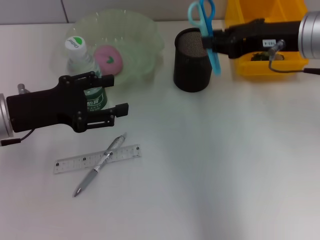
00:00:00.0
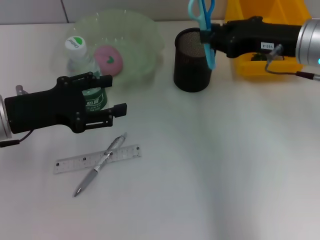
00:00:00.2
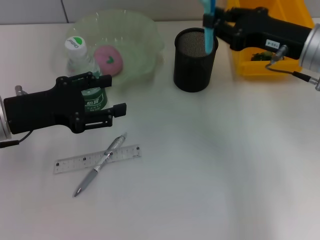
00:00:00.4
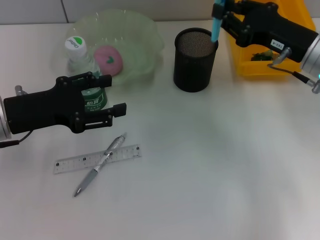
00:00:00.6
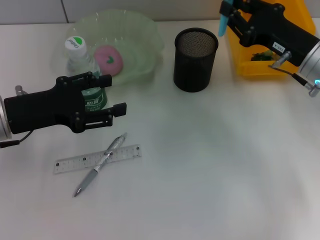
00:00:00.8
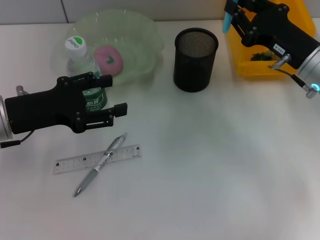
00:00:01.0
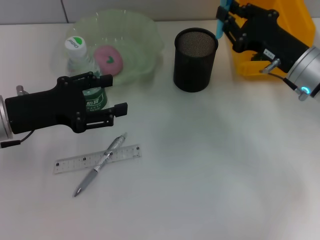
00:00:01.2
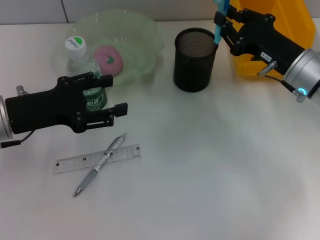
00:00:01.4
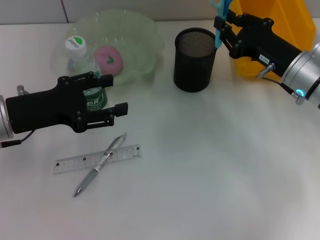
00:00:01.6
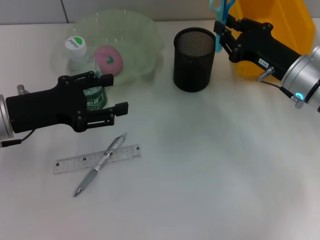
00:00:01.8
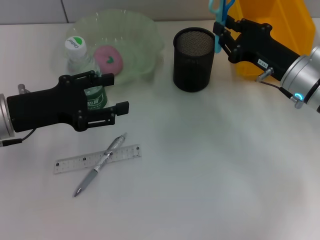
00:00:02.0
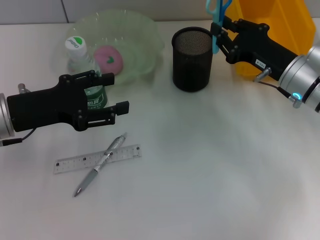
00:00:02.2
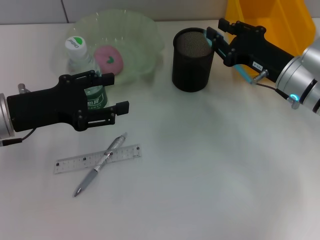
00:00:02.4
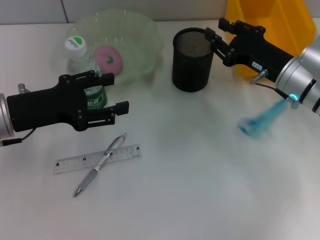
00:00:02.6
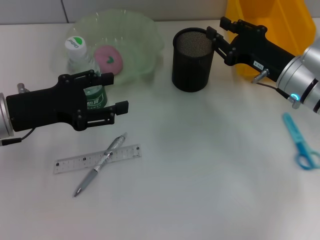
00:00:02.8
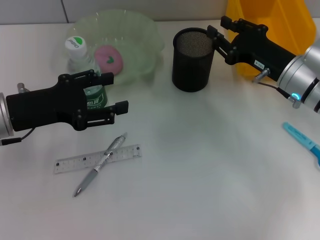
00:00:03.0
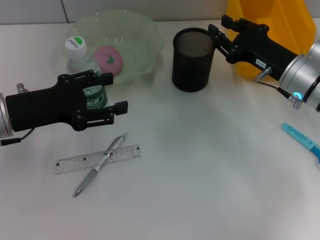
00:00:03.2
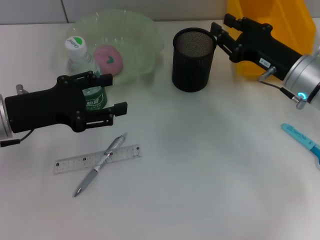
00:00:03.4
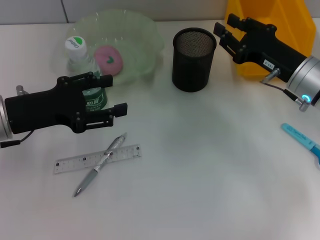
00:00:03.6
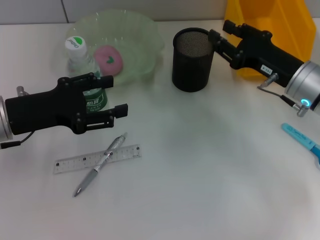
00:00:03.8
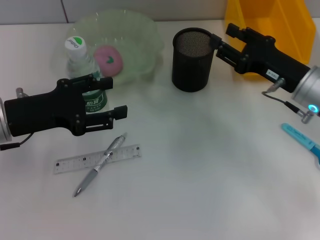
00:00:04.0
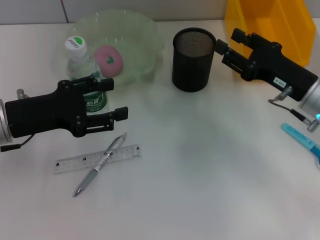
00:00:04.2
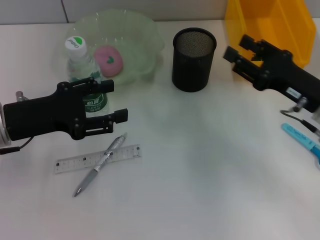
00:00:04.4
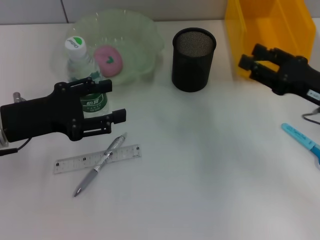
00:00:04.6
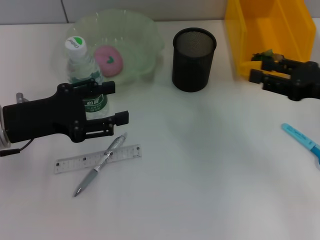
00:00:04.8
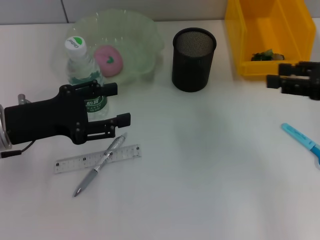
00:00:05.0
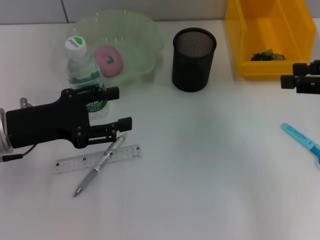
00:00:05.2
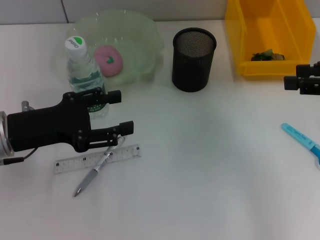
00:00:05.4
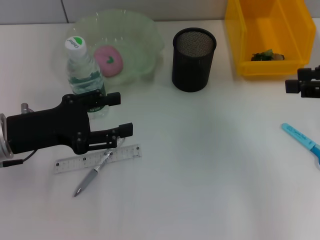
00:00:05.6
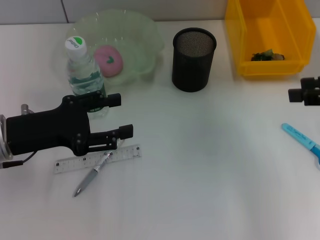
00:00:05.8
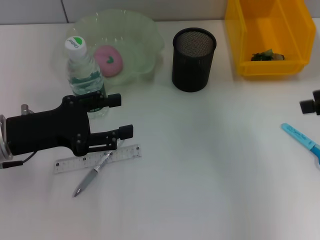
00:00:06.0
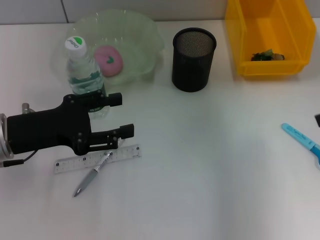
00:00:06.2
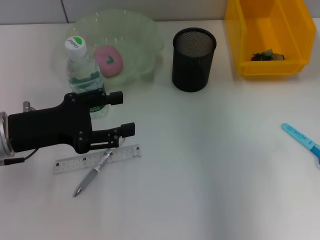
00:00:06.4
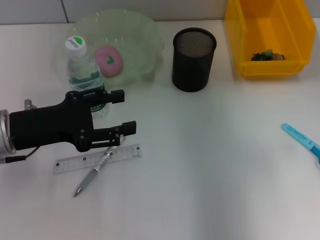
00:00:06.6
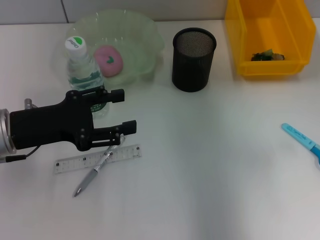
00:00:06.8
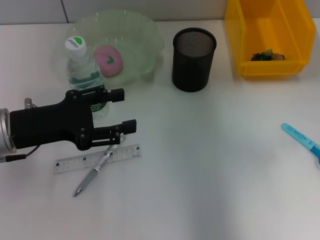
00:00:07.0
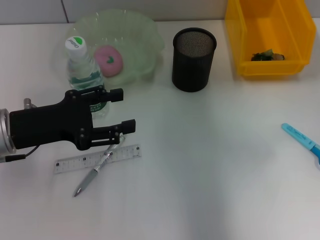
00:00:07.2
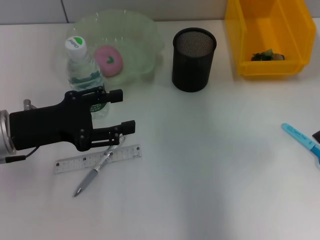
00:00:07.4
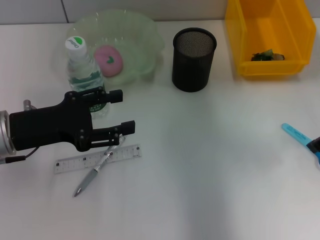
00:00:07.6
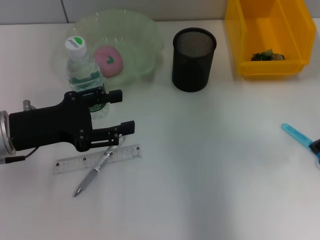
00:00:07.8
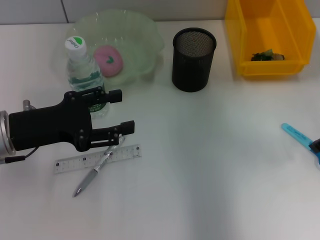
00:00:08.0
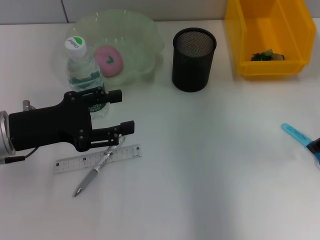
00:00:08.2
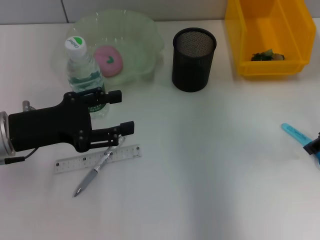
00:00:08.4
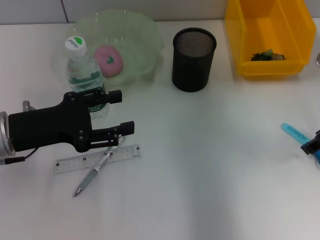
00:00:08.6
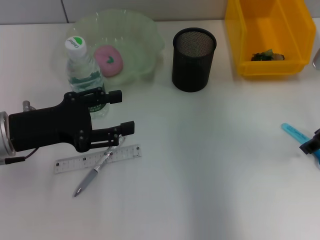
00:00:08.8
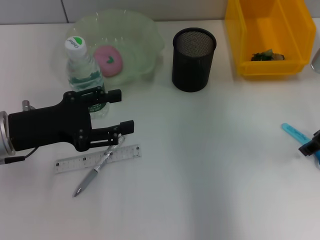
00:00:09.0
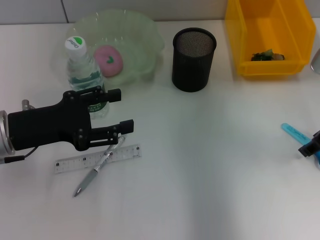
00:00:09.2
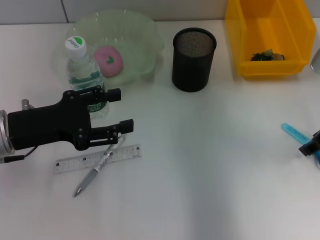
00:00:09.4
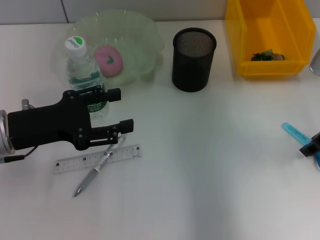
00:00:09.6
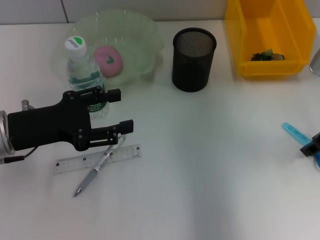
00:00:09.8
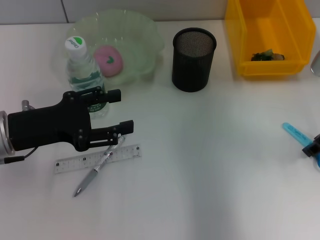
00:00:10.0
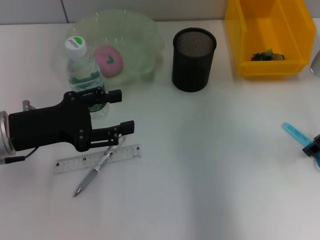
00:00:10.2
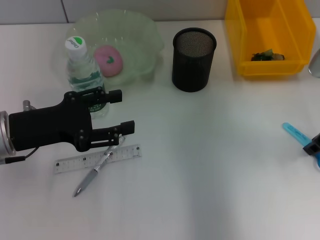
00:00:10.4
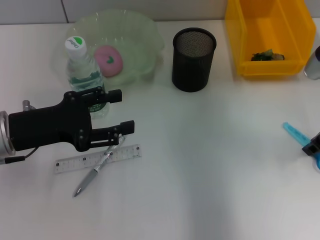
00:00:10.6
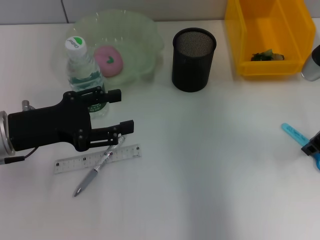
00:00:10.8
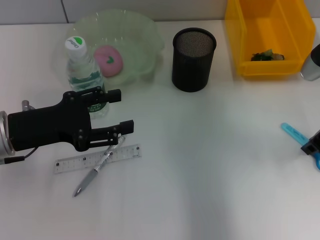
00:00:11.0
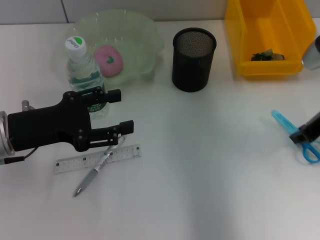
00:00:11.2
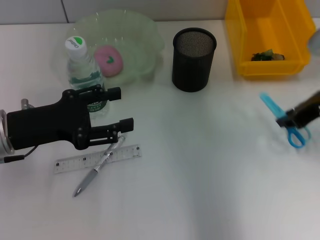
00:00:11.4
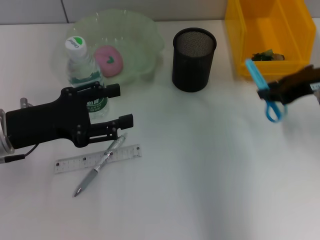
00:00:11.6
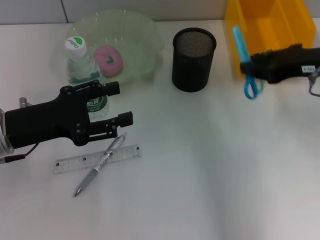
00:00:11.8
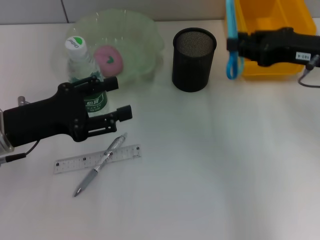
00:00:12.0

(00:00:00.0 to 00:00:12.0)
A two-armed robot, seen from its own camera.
Step, 00:00:00.0 - 00:00:11.0: Grab the blue scissors with the right hand.
00:00:00.0 - 00:00:01.6: The right gripper moves downward, approximately 10 cm.
00:00:01.6 - 00:00:03.0: Both grippers stay about where they are.
00:00:03.0 - 00:00:04.4: The right gripper moves backward, approximately 5 cm.
00:00:04.4 - 00:00:06.0: The right gripper heads upward and to the right, covering approximately 15 cm.
00:00:06.0 - 00:00:07.6: The right gripper changes place by approximately 5 cm.
00:00:07.6 - 00:00:09.0: There are only small adjustments of the grippers.
00:00:09.0 - 00:00:10.4: The two grippers keep their place.
00:00:10.4 - 00:00:12.0: The right gripper moves about 5 cm.

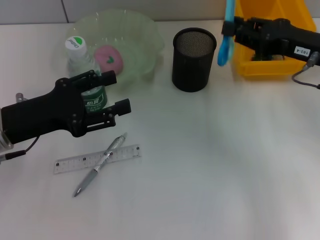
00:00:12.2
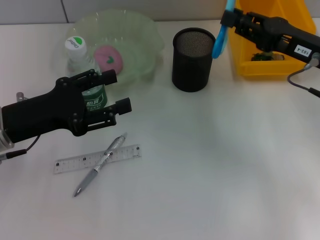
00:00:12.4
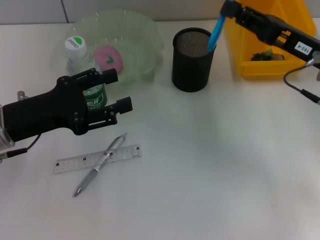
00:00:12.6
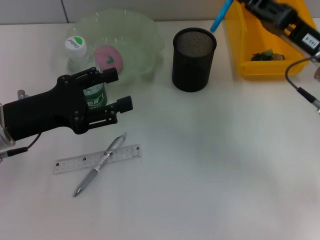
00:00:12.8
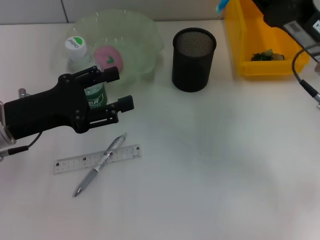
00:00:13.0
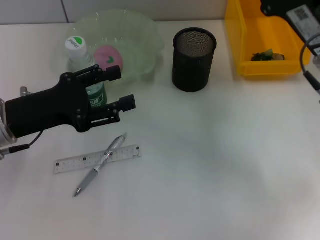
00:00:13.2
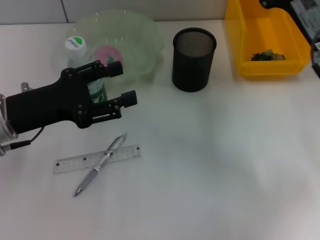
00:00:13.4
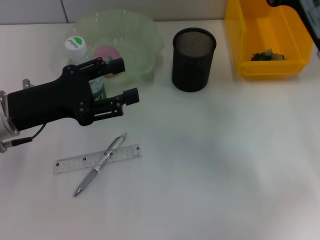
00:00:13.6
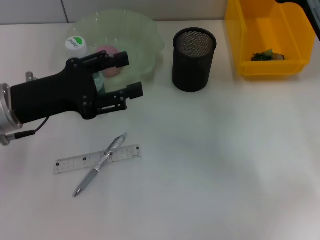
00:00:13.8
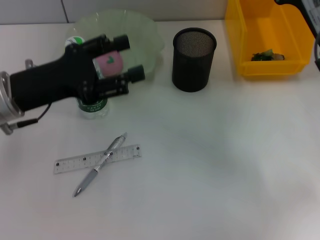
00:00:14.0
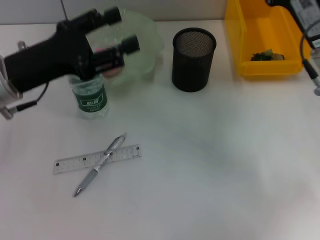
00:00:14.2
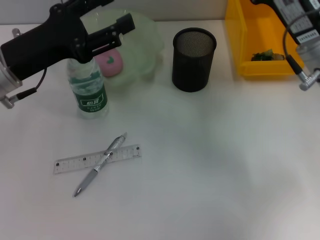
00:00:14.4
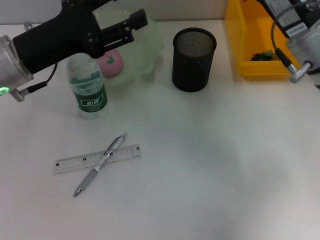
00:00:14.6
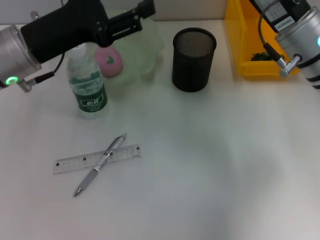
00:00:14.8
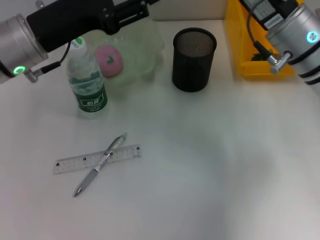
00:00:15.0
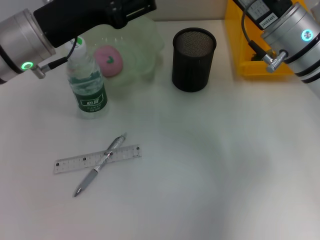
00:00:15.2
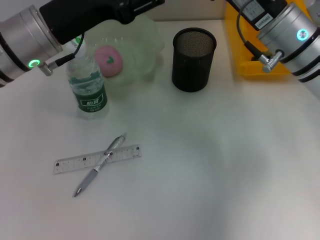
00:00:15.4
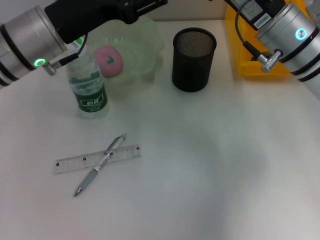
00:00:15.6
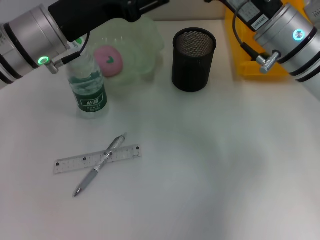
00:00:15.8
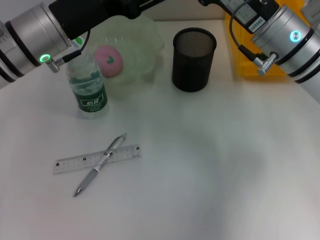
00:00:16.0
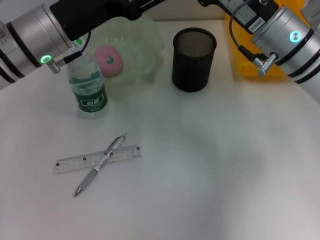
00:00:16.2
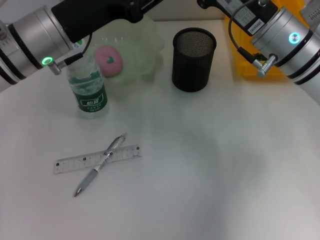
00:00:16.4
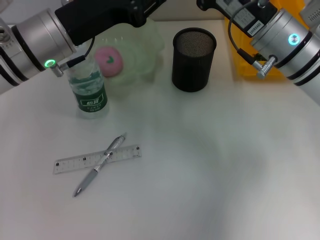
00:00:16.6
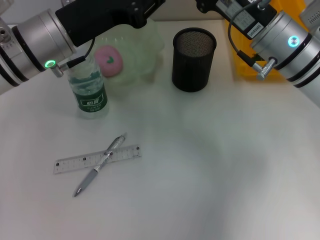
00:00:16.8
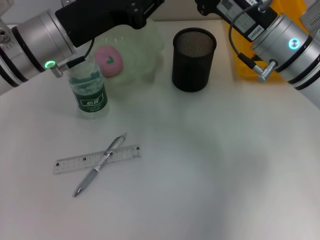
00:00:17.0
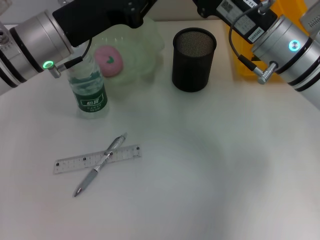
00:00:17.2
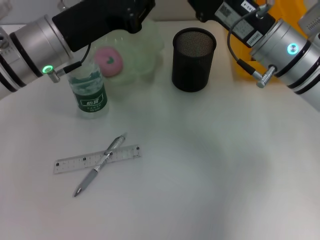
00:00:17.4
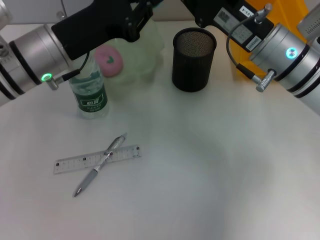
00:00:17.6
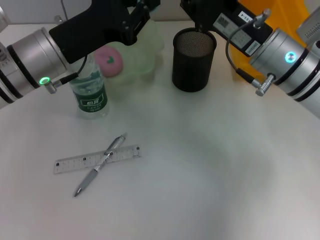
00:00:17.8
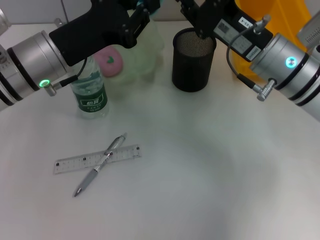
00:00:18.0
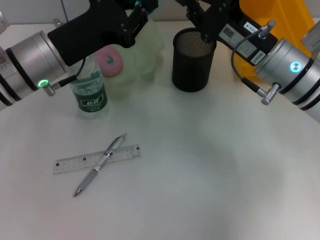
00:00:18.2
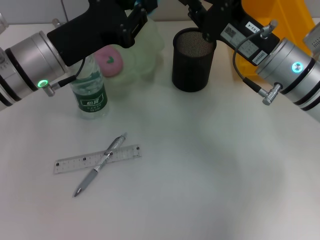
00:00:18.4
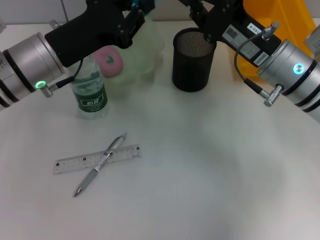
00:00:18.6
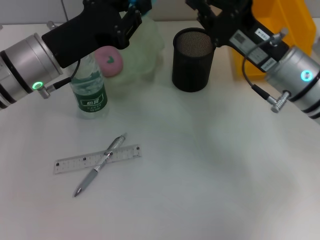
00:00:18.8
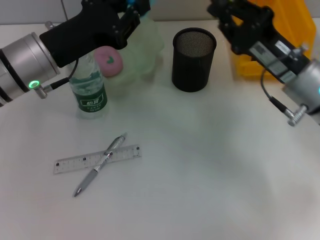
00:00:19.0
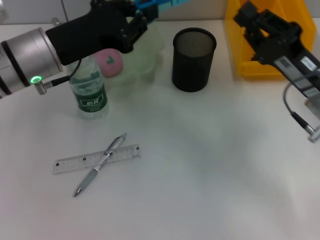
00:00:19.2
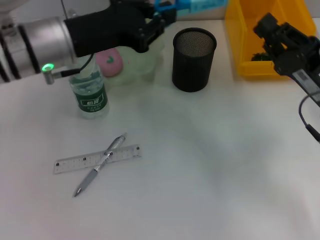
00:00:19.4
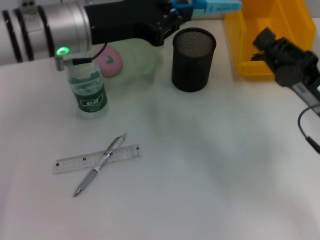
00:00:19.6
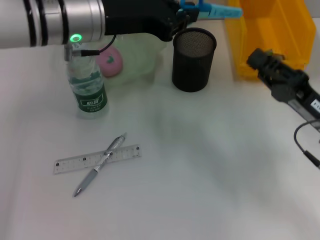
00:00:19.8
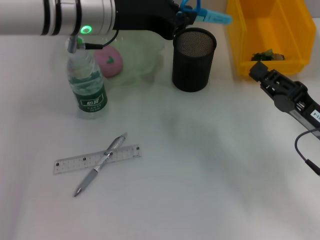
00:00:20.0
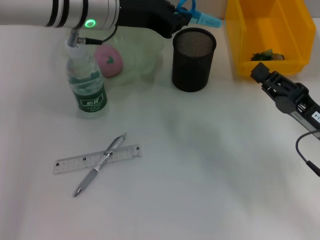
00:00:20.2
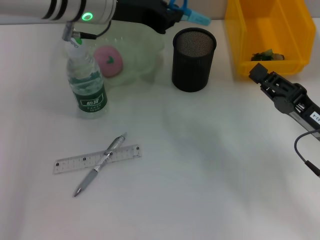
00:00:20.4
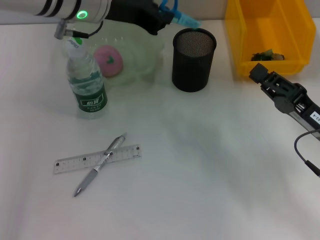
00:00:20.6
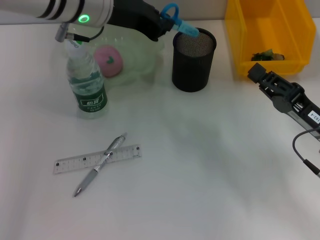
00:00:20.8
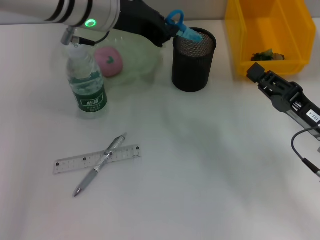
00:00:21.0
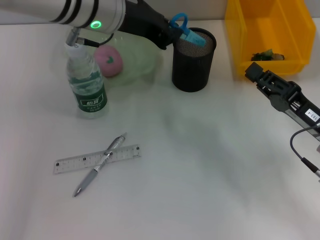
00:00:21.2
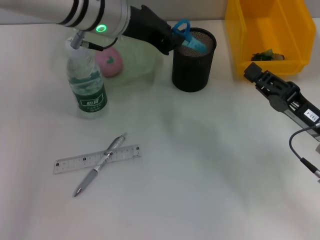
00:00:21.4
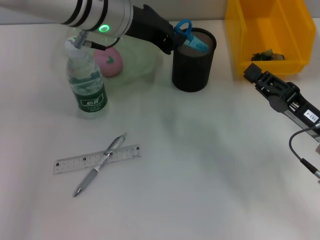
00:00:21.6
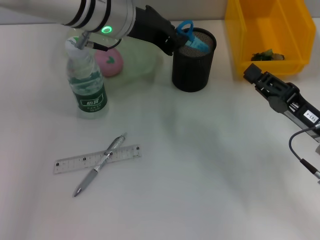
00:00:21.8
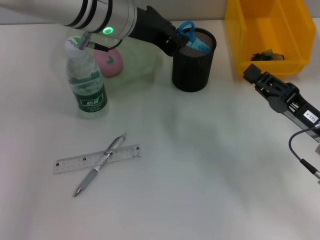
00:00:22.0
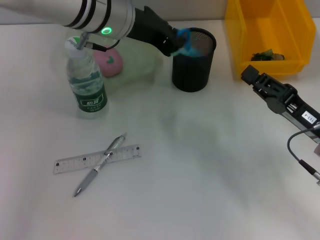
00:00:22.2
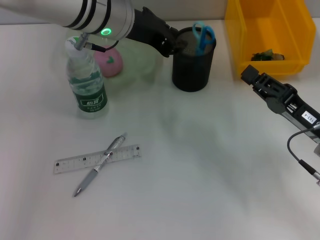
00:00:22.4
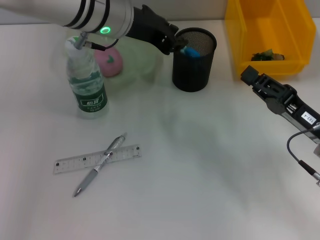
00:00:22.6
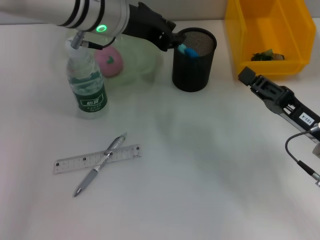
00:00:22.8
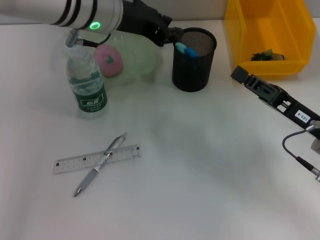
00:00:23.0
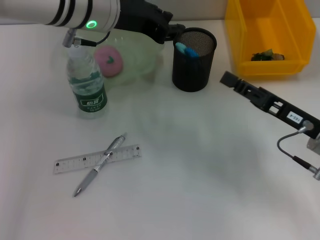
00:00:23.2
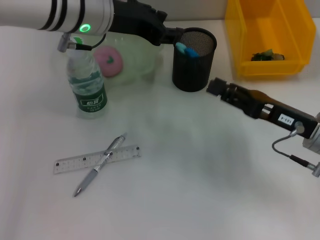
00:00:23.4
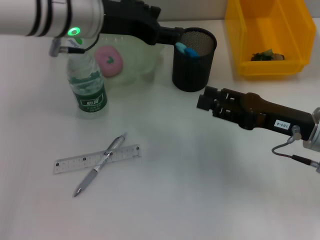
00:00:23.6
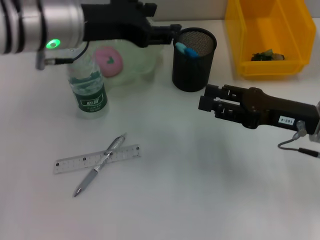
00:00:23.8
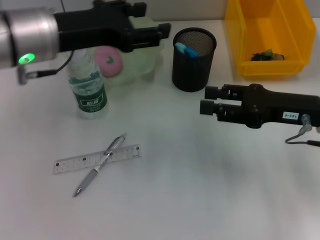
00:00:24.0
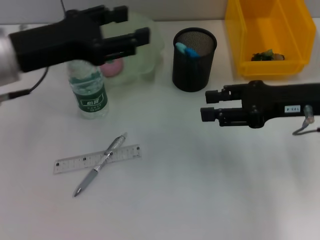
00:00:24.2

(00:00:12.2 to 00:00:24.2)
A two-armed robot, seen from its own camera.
Step, 00:00:12.2 - 00:00:19.0: Pass the blue scissors from the right hand to the left hand.
Step, 00:00:19.2 - 00:00:23.0: Place the blue utility knife into the pen holder with the left hand.
00:00:13.8 - 00:00:15.2: The right gripper moves to the left, approximately 5 cm. Meanwhile the left gripper goes about 5 cm forward.
00:00:15.2 - 00:00:16.6: The grippers stay close to where they were, moving slightly.
00:00:16.6 - 00:00:18.2: The left gripper closes up.
00:00:18.2 - 00:00:19.8: The right gripper is displaced backward and to the right by some 10 cm. Meanwhile the left gripper goes approximately 10 cm upward and to the right.
00:00:21.2 - 00:00:22.6: The grippers stay close to where they were, moving slightly.
00:00:22.6 - 00:00:24.2: The right gripper is displaced upward and forward by approximately 10 cm, and opens up. The left gripper moves to the left and backward, some 15 cm, and opens its fingers.
